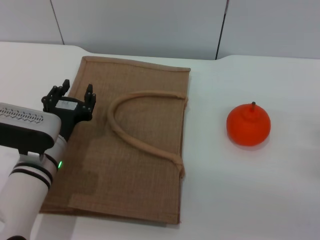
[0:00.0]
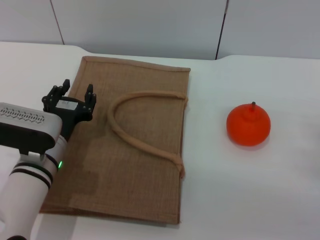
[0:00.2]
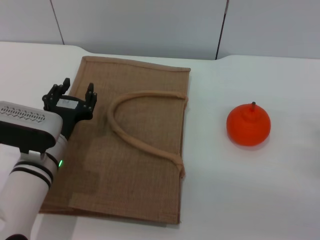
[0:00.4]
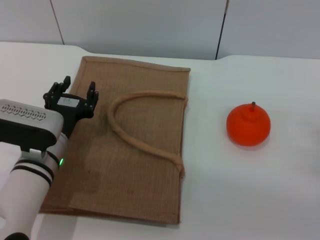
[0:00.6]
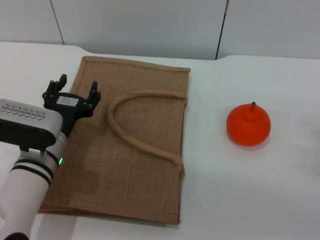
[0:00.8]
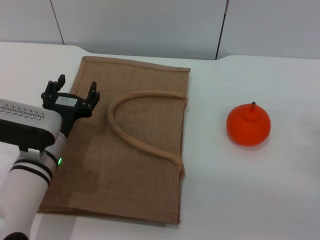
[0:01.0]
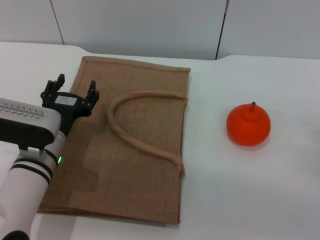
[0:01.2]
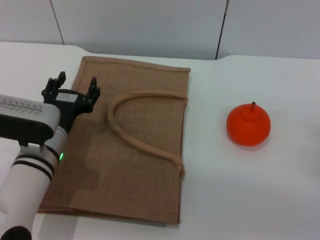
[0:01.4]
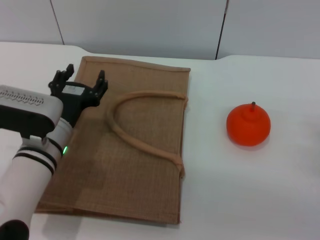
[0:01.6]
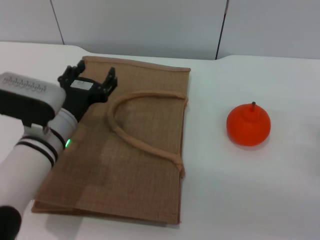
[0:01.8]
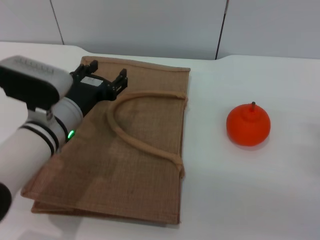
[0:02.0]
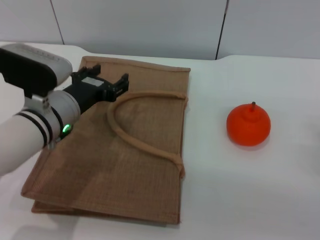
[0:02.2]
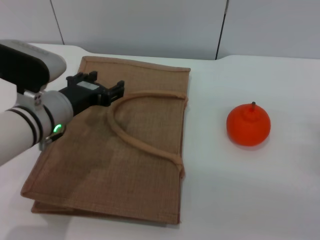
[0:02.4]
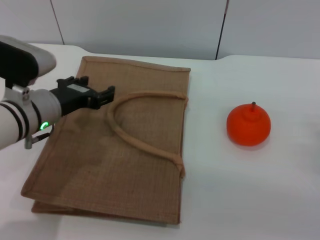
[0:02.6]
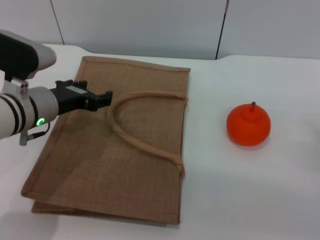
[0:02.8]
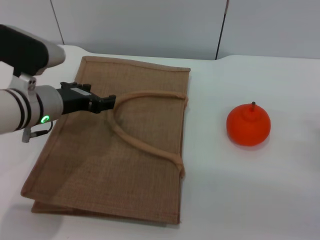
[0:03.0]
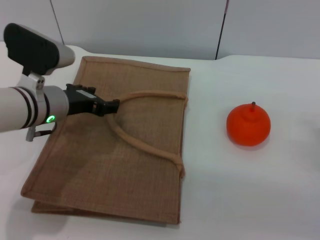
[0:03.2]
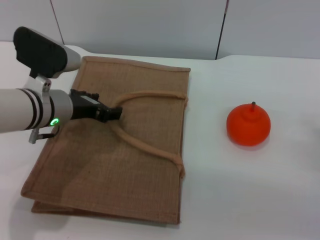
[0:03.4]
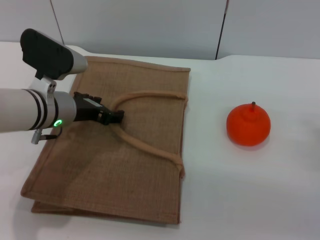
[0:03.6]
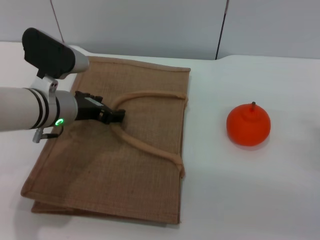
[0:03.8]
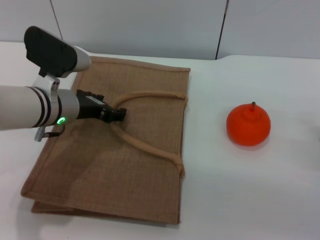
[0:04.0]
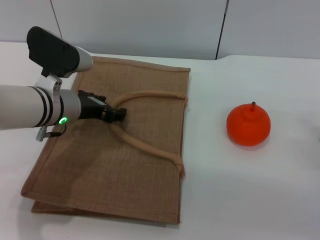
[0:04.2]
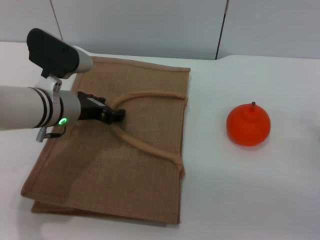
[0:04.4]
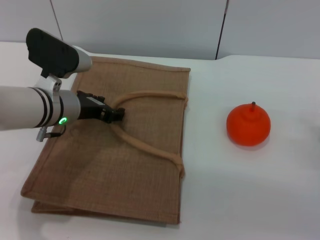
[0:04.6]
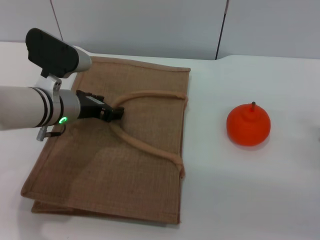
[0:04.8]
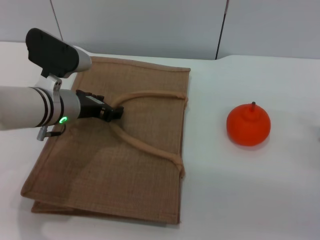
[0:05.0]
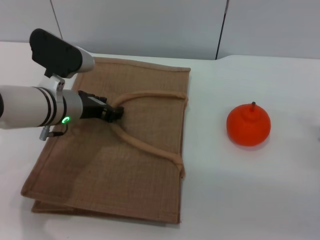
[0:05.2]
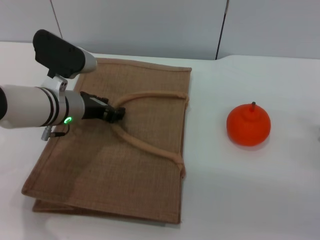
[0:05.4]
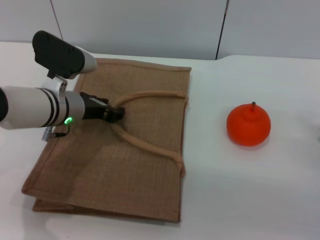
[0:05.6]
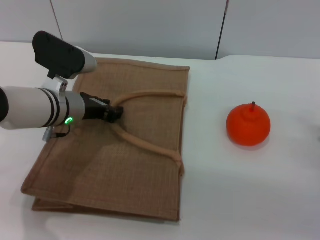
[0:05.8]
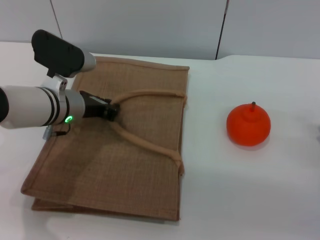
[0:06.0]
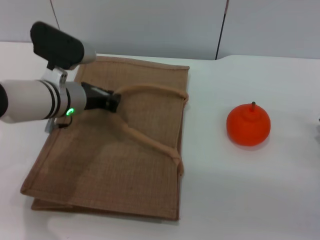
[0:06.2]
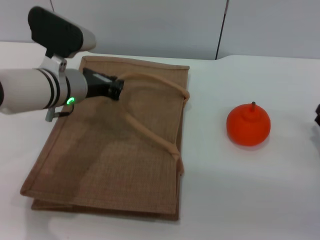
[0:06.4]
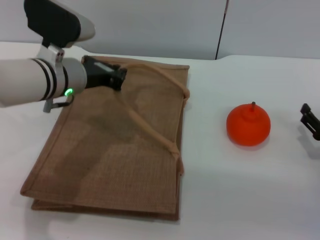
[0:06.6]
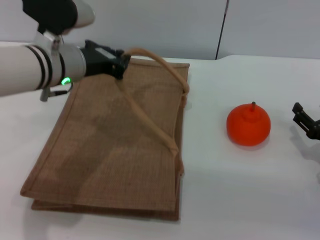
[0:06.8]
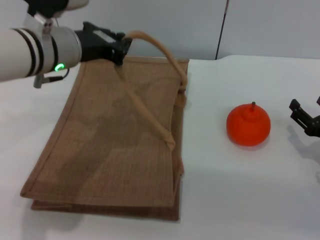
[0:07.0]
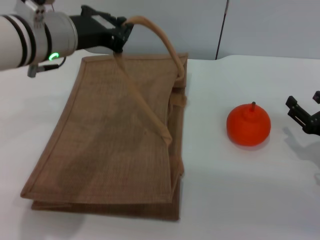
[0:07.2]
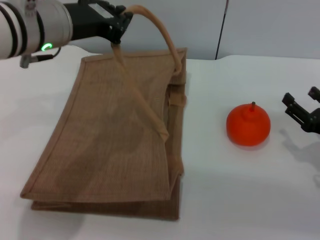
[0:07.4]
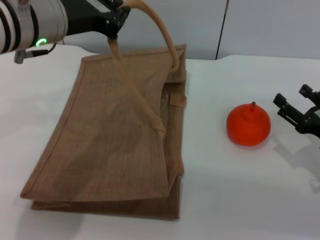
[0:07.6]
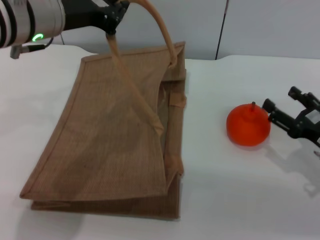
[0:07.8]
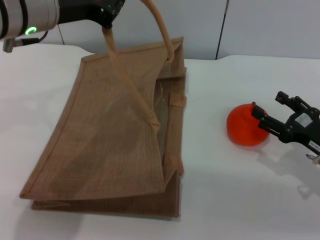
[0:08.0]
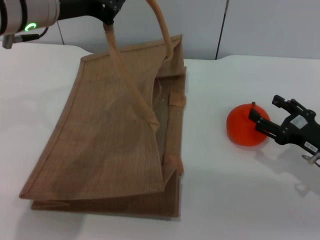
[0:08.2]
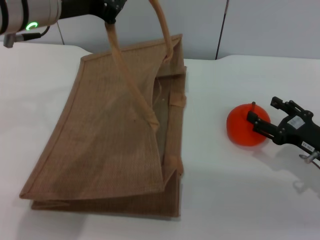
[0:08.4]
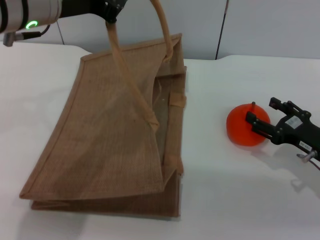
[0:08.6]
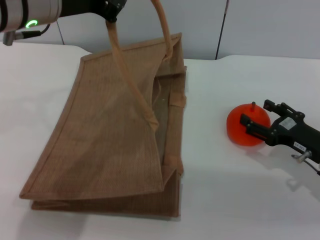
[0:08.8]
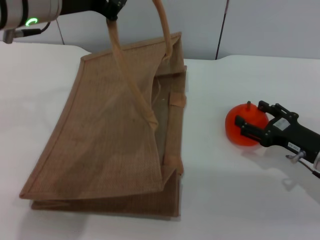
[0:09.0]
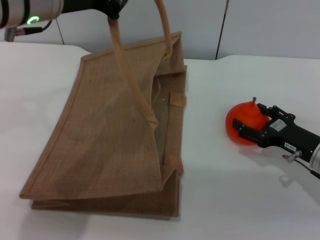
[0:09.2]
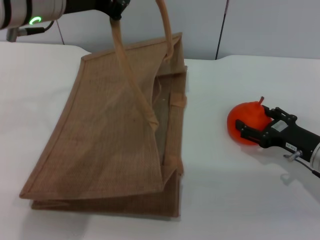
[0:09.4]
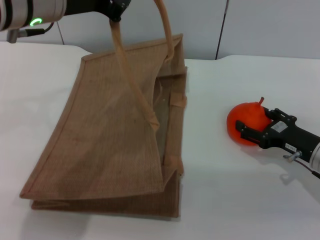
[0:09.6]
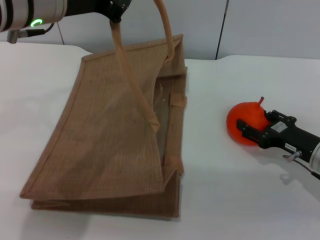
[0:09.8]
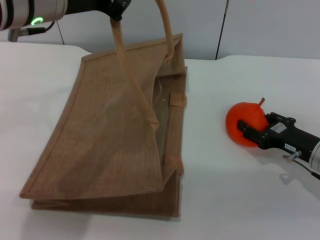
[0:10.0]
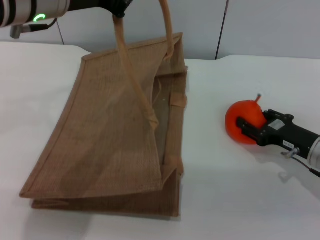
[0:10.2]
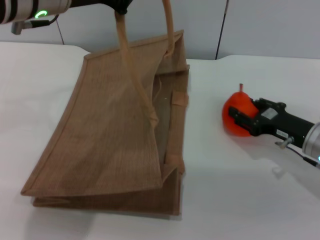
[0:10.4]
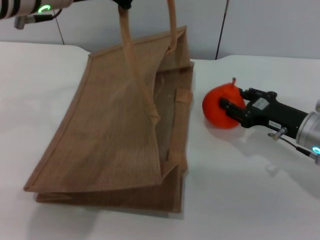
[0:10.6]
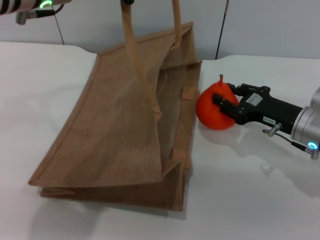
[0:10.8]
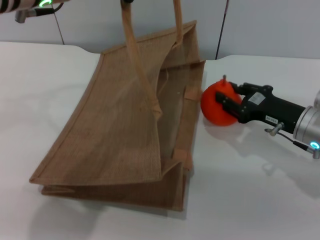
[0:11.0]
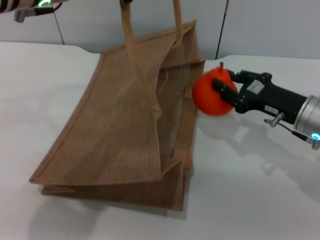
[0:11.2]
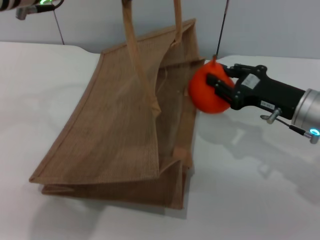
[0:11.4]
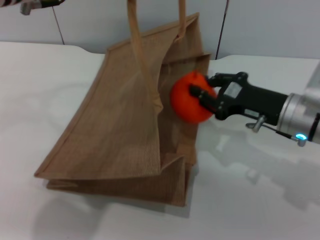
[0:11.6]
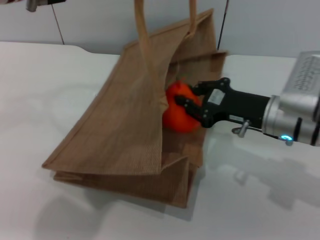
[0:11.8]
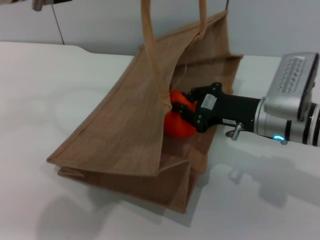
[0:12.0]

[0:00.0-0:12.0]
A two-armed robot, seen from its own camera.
Task of the whole recording: pick up the orange from the table and place it in the brown handbag.
Step, 0:00.0 to 0:06.0: Lift the woven bag with the left gripper to open it.
Step, 0:06.2 to 0:10.6: Pick up the orange with the right gripper.
0:00.0 to 0:01.6: The grippers make only small movements.
0:01.6 to 0:03.0: The left gripper goes some 5 cm upward.
0:03.0 to 0:04.4: The grippers make only small movements.
0:04.4 to 0:06.0: The left gripper closes.
0:06.0 to 0:07.6: The left gripper travels upward by some 15 cm, and closes its fingers.
0:07.6 to 0:09.0: The grippers move only a little.
0:09.0 to 0:10.4: The right gripper closes up.
0:10.4 to 0:12.0: The right gripper travels to the left and upward by approximately 10 cm, and closes.

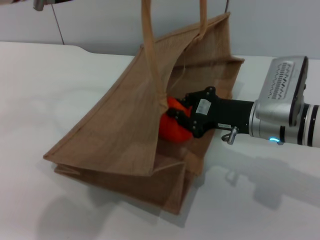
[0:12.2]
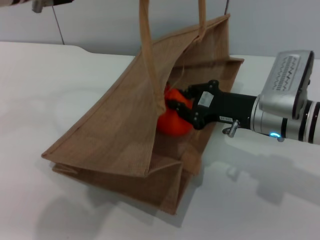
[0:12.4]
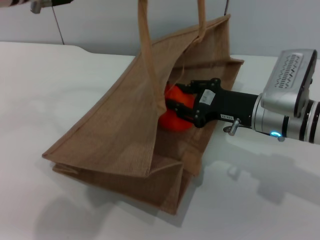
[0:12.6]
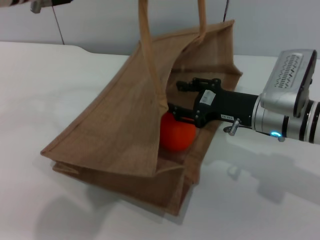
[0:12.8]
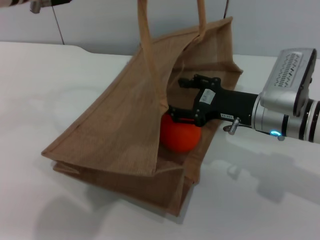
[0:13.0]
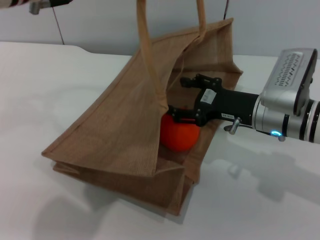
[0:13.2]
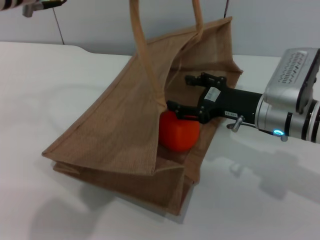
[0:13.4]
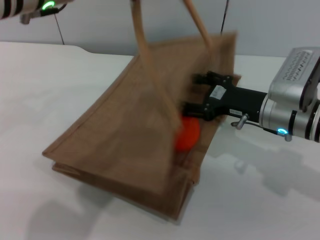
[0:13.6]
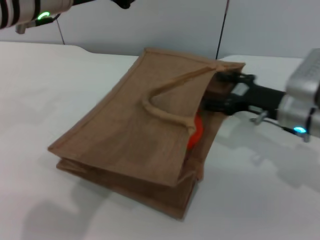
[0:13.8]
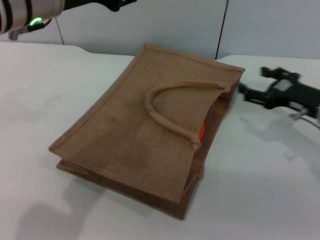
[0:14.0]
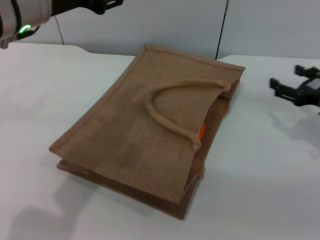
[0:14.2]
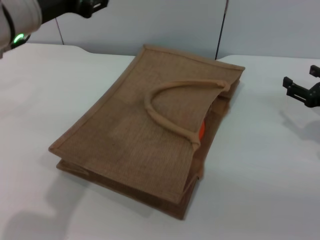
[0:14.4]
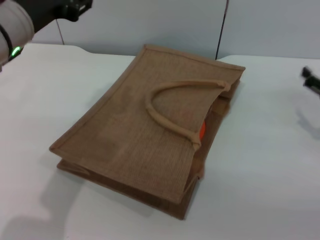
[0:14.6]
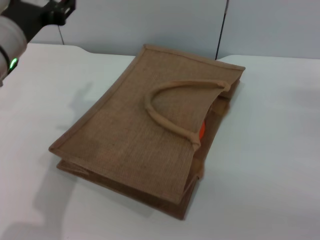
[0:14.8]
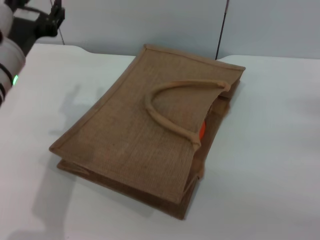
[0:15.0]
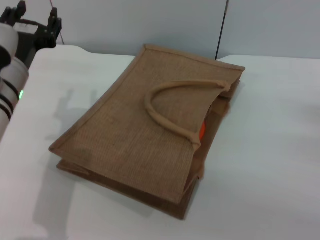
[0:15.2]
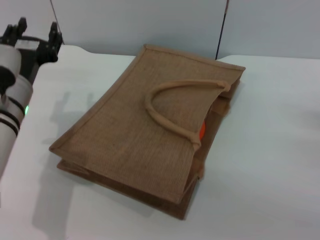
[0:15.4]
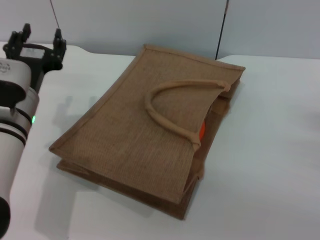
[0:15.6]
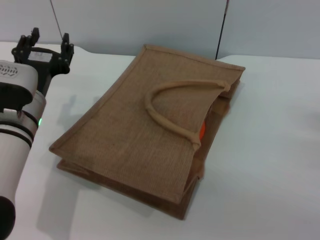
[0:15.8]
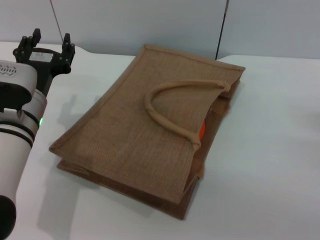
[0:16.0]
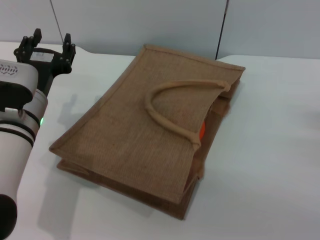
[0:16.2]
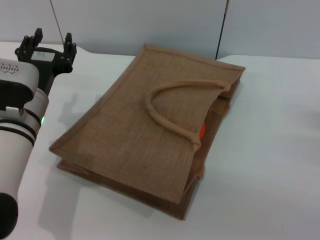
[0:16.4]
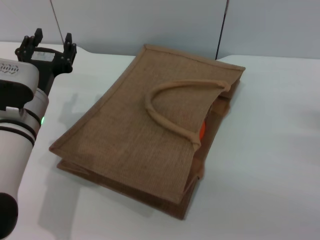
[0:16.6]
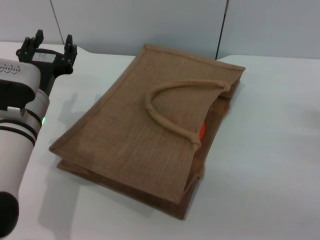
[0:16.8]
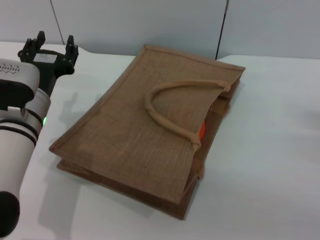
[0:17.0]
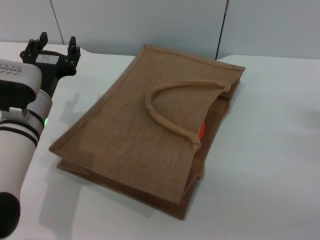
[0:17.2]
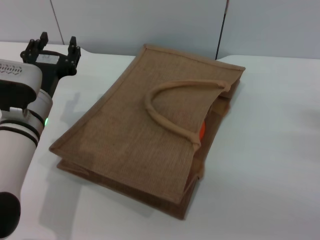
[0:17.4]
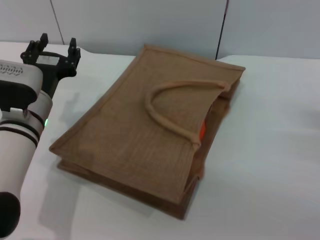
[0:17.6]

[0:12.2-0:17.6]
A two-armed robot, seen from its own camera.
Task of the whole recording: pick up the orange from the table and place it in the brown handbag.
0:12.2 to 0:13.6: The right gripper opens its fingers.
0:13.6 to 0:15.0: The right gripper shifts about 20 cm to the right. Meanwhile the left gripper is displaced downward and to the left by some 15 cm, and opens.
0:15.0 to 0:16.2: The left gripper moves downward, about 5 cm.
0:16.2 to 0:17.6: The two grippers keep their place.
